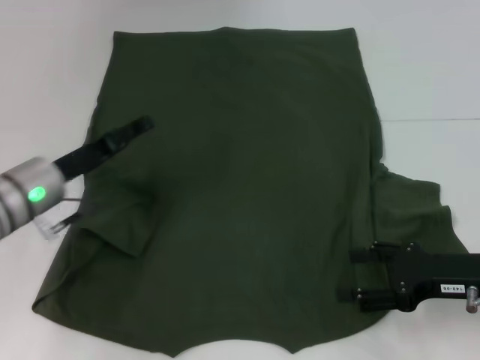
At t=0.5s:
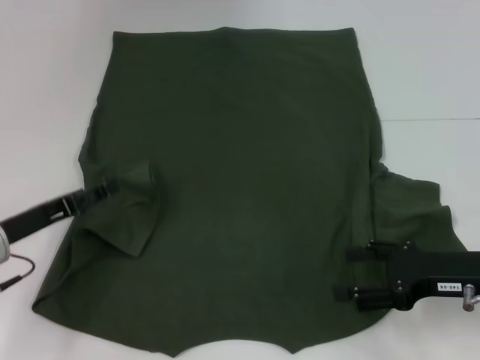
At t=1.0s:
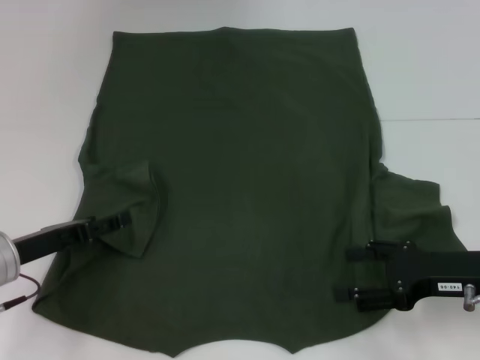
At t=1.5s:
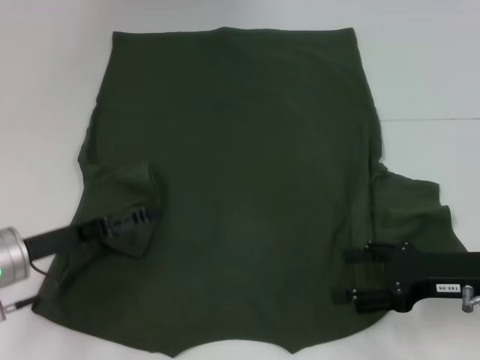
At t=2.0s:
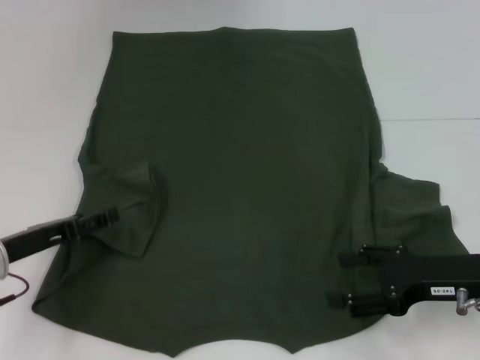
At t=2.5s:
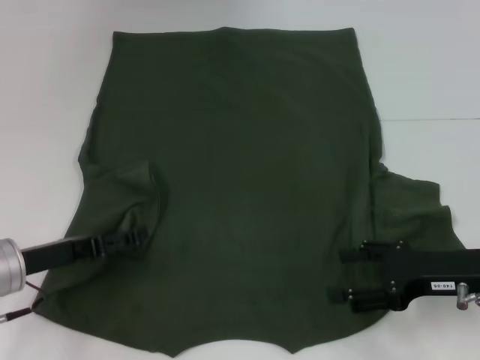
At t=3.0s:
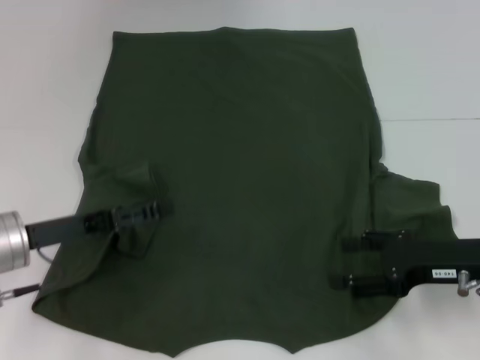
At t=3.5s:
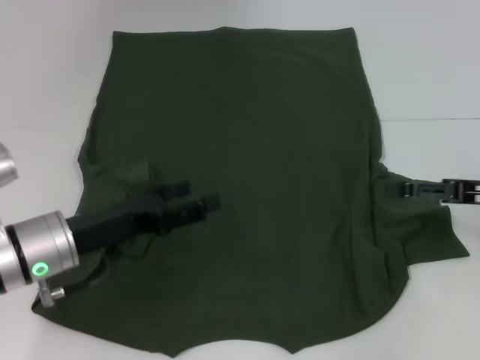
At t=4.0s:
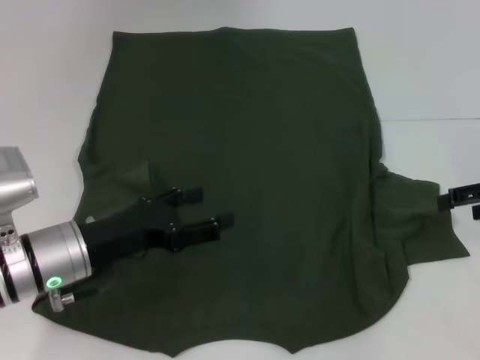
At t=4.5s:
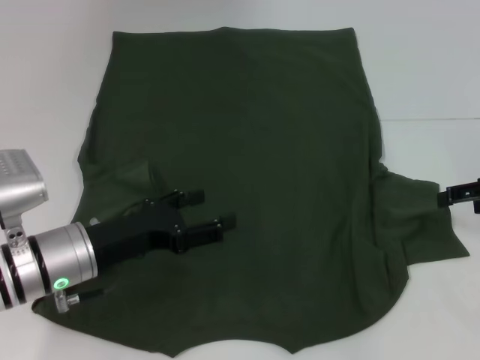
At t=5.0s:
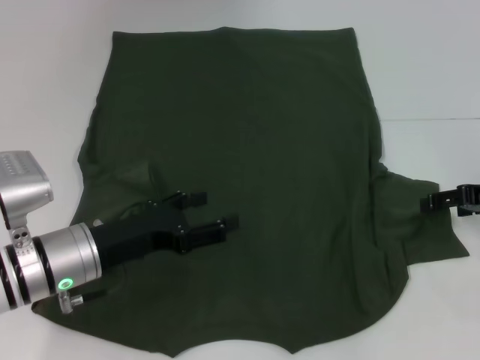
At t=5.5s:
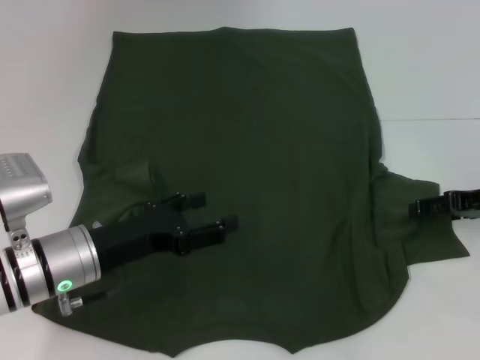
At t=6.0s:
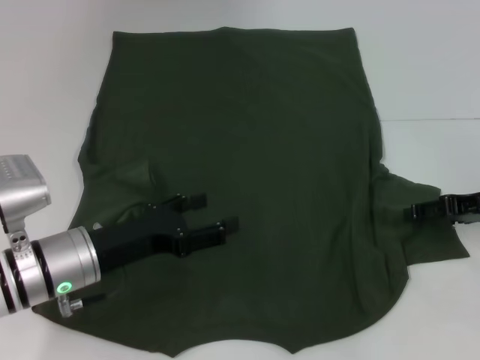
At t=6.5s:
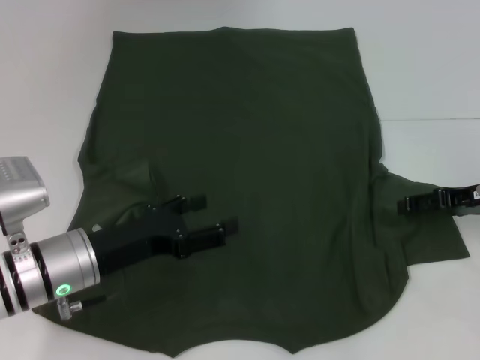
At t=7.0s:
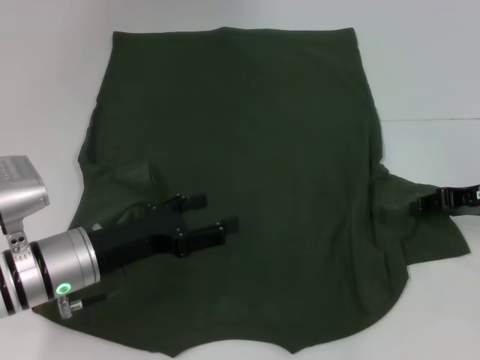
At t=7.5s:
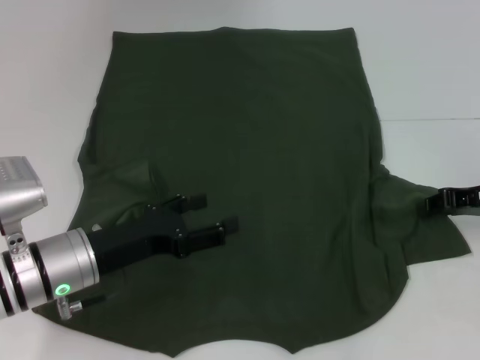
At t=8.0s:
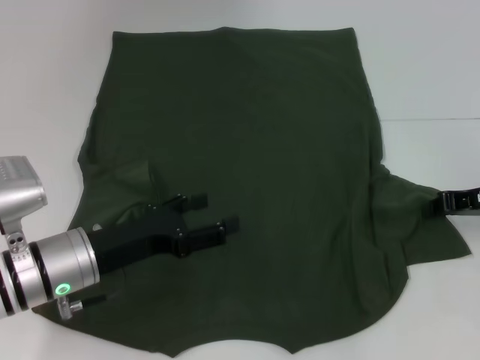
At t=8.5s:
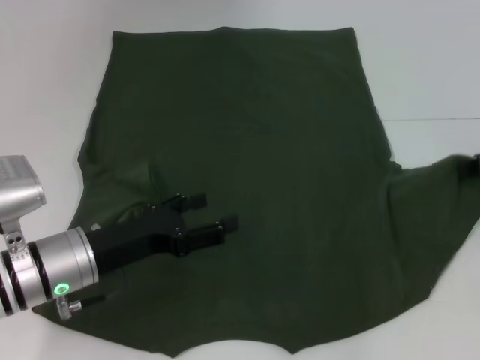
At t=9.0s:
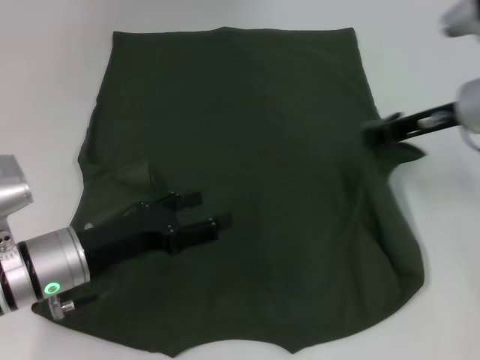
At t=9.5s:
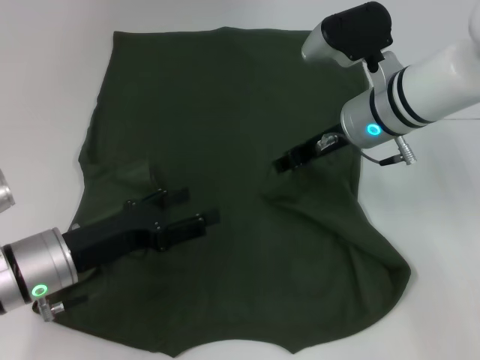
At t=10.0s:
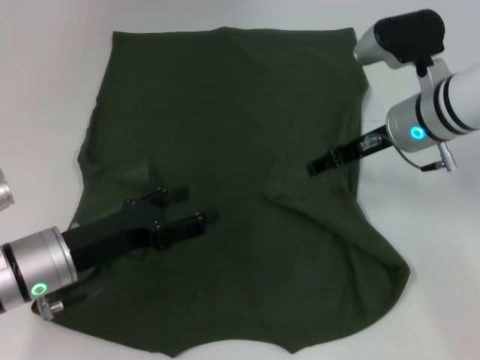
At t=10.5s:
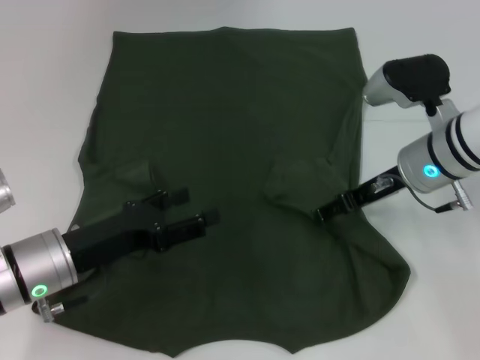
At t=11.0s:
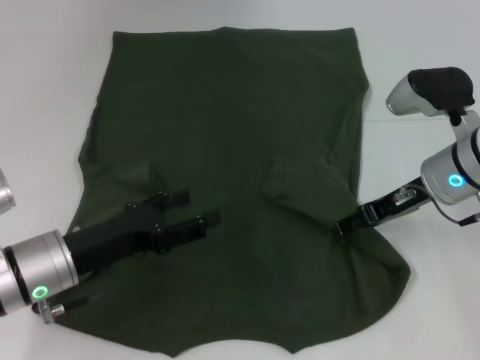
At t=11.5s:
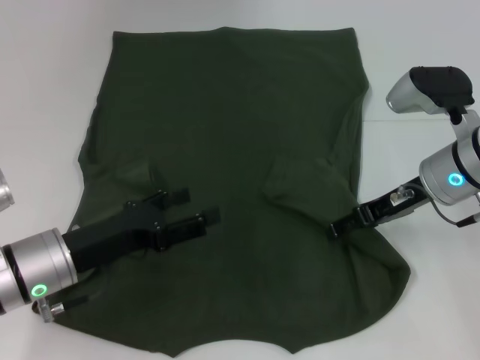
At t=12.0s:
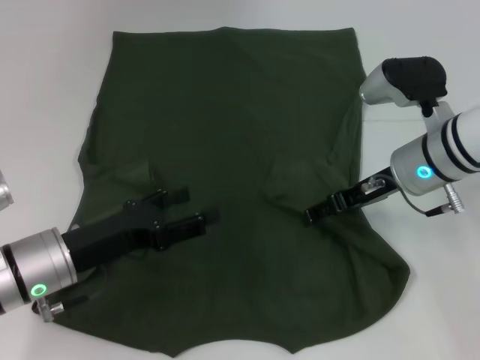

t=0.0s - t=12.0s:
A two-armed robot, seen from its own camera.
Step, t=0.0s - t=3.0s: Fold the bottom left sleeve with your left hand.
t=0.0s - t=2.0s: The left gripper moves backward and to the left, about 10 cm.
t=2.0s - t=4.0s: The right gripper travels to the right, upward and forward by approximately 15 cm, while the left gripper goes roughly 10 cm to the right.
t=4.0s - t=6.0s: The right gripper ends up some 5 cm from where it was.
t=6.0s - t=8.0s: The right gripper closes.
t=8.0s - t=10.0s: The right gripper travels to the left and forward by approximately 15 cm, and opens.
t=10.0s - t=12.0s: The right gripper opens up.

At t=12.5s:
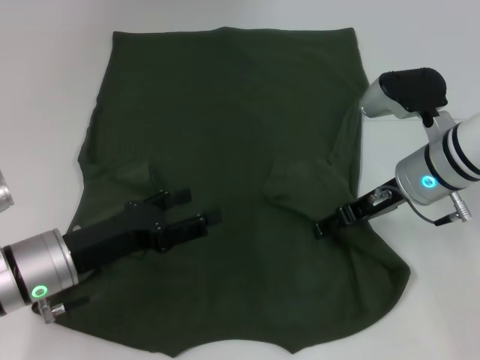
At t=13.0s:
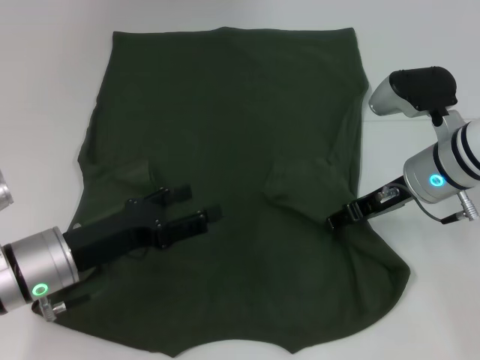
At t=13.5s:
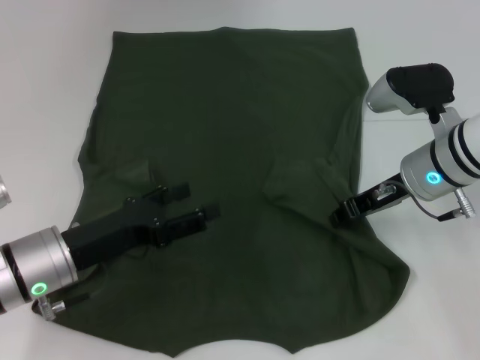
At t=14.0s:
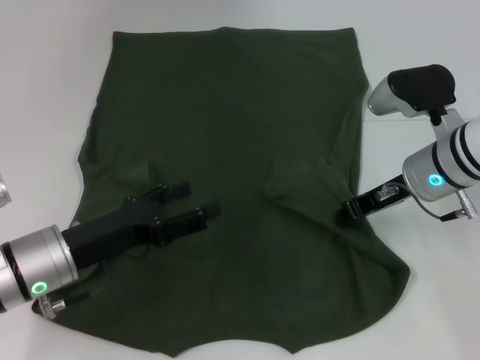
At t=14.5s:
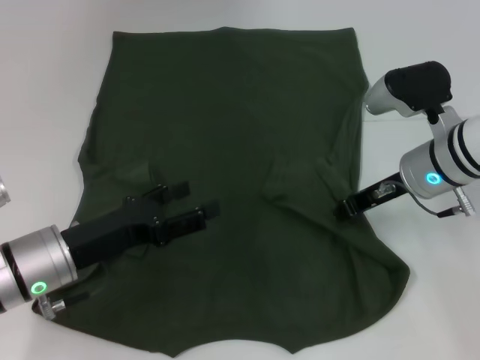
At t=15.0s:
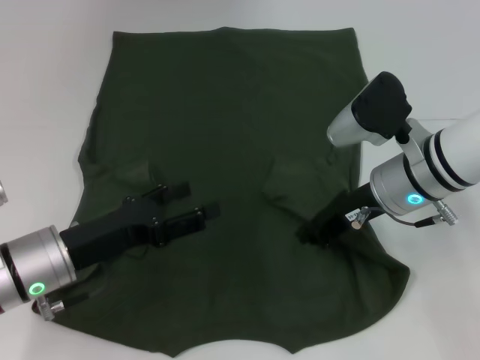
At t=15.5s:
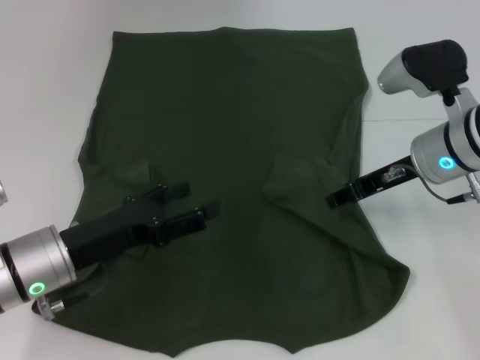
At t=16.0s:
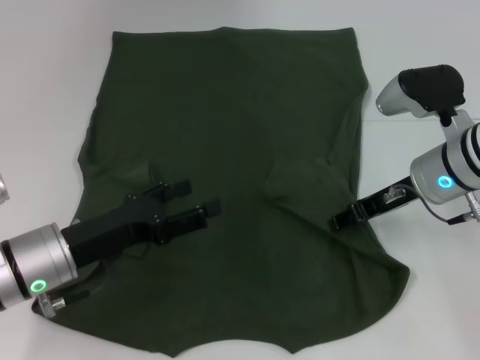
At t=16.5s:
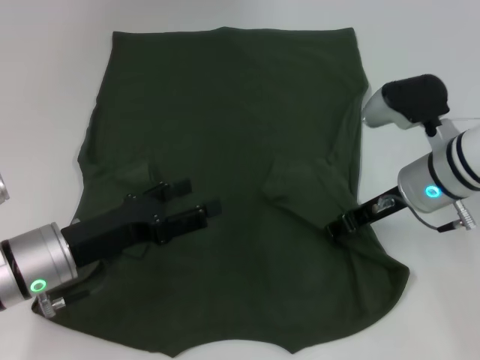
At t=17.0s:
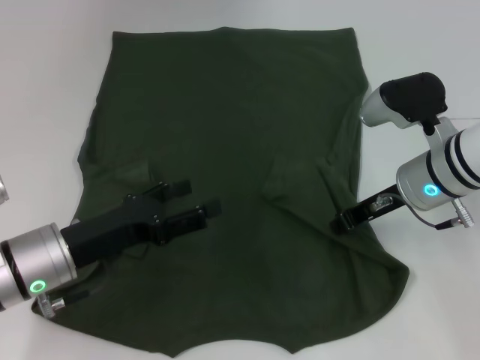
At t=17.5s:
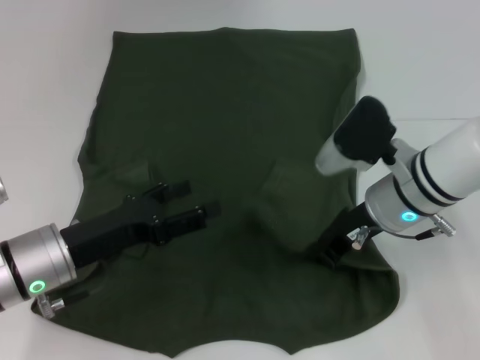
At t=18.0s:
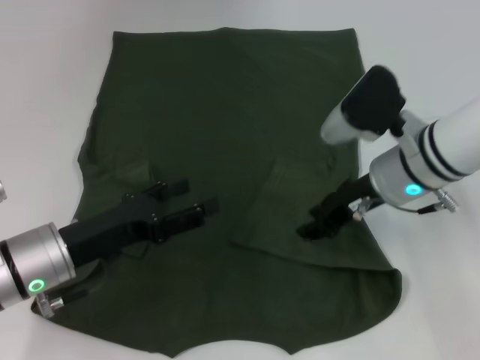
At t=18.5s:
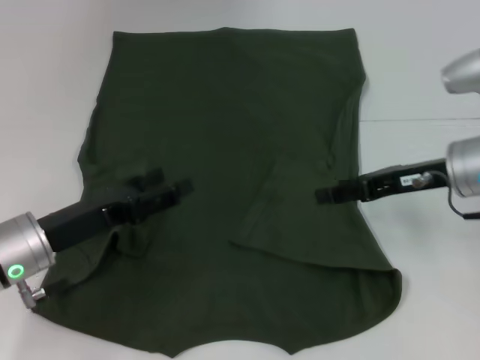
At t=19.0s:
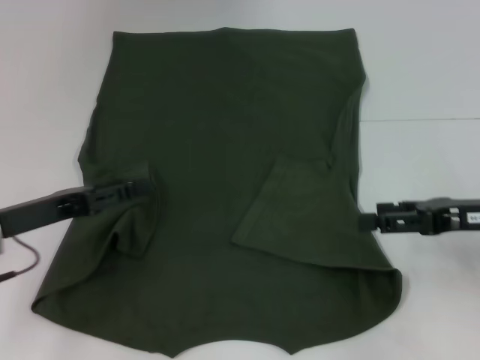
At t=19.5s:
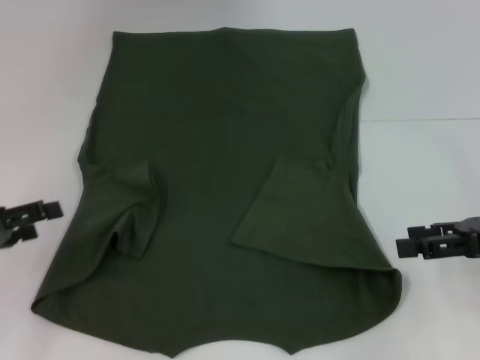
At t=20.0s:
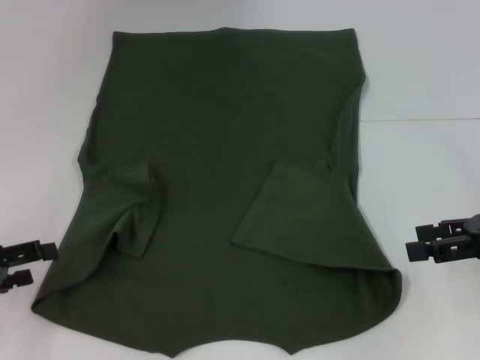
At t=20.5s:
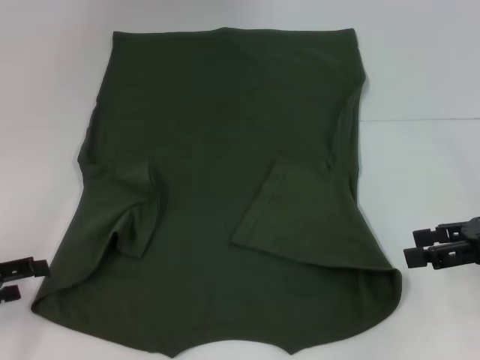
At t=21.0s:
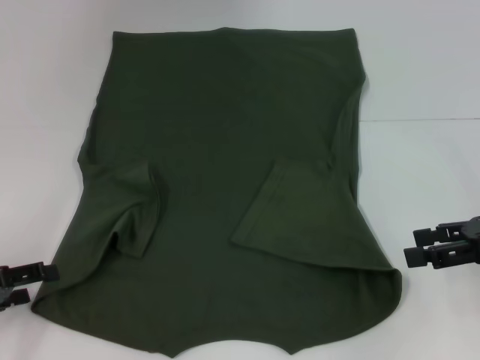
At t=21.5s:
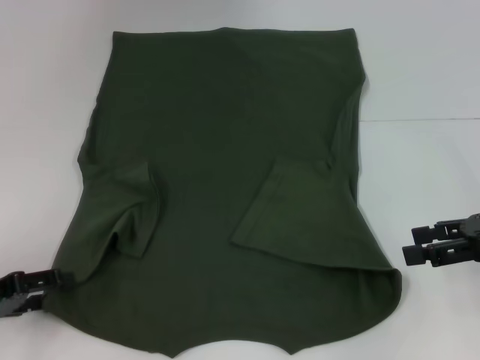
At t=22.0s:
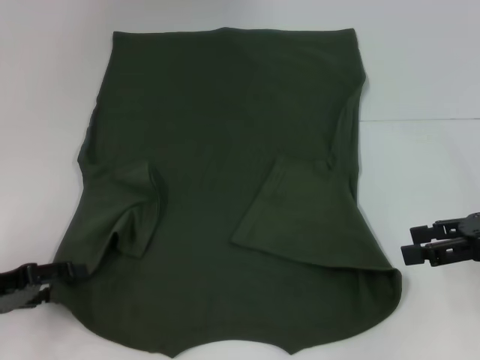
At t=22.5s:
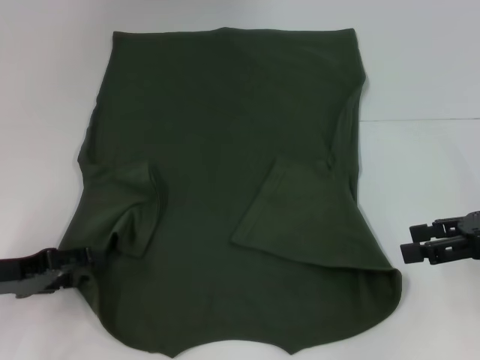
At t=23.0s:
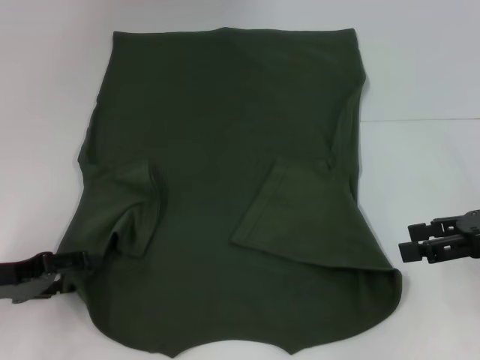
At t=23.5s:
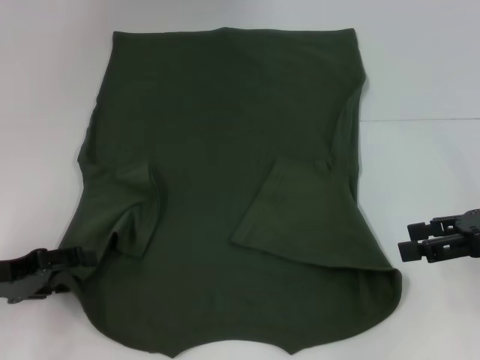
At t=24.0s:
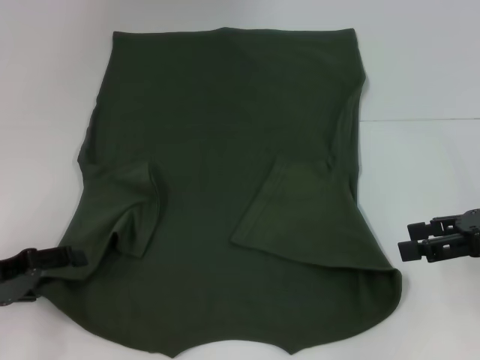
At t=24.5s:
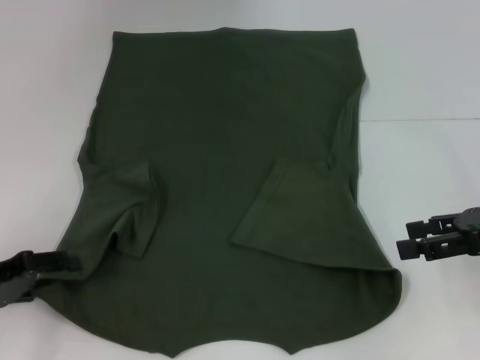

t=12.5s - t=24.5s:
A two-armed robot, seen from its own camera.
Step, t=12.5s - t=18.0s: Fold the bottom right sleeve with your right hand.
t=12.5s - t=14.5s: The right gripper closes up.
t=14.5s - t=16.5s: The right gripper opens its fingers.
t=16.5s - t=18.5s: The right gripper shifts by approximately 5 cm, and closes, then reopens.
t=18.5s - t=20.5s: The right gripper goes about 10 cm to the right and backward. Meanwhile the left gripper moves to the left, about 15 cm.
t=20.5s - t=22.5s: The left gripper shifts by some 5 cm.
t=22.5s - t=24.5s: There are only small adjustments of the grippers.

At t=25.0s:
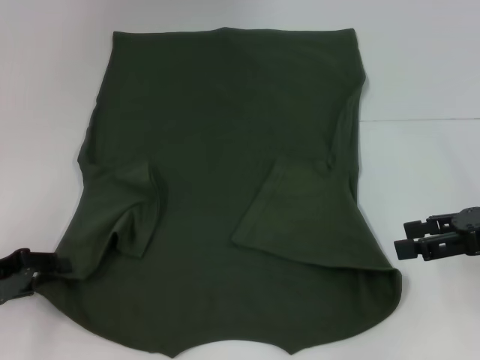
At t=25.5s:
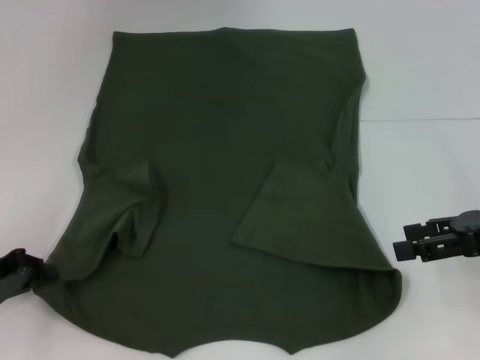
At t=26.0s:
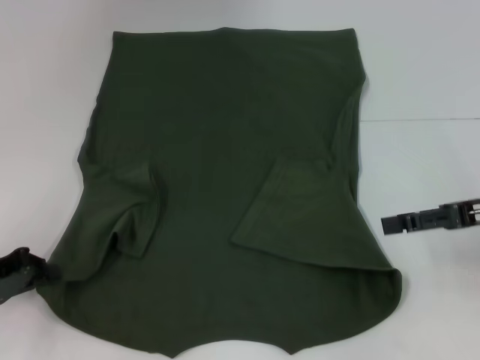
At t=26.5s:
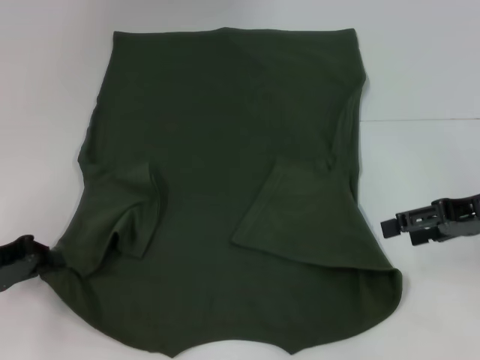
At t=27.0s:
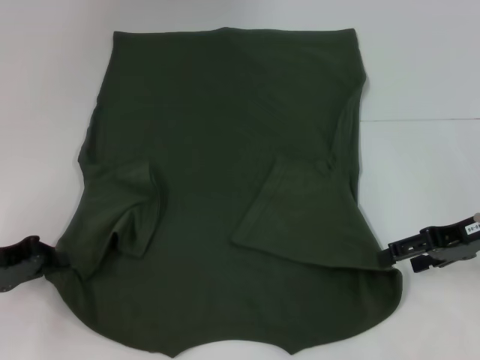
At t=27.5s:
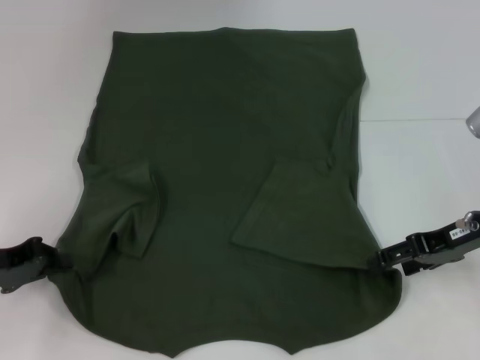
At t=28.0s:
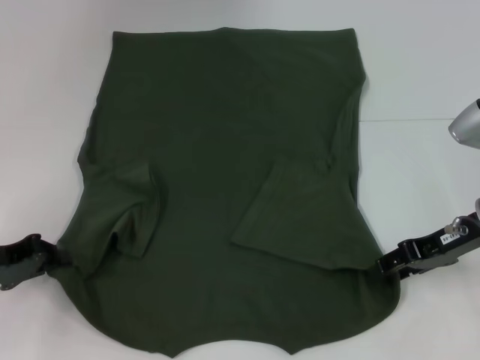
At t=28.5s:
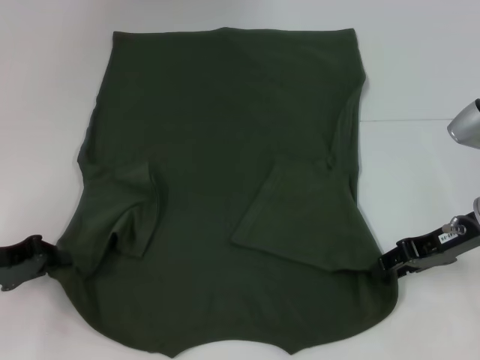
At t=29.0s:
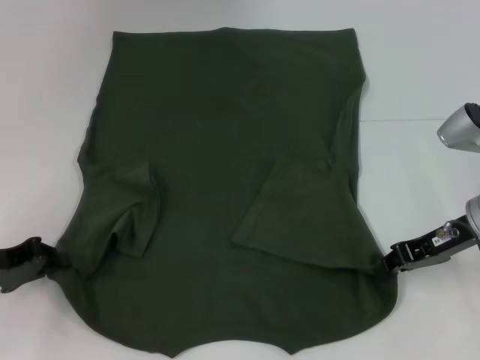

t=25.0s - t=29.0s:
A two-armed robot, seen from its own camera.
t=25.0s - t=27.0s: The left gripper closes up, while the right gripper ends up approximately 5 cm from where it was.
t=27.0s - t=29.0s: The right gripper closes its fingers.
